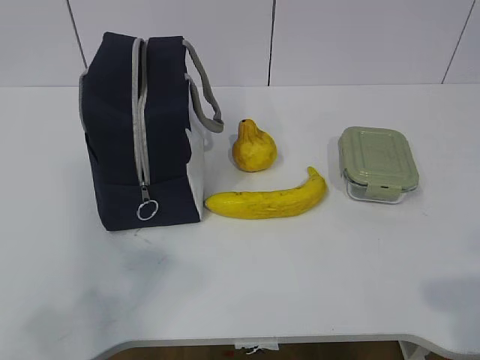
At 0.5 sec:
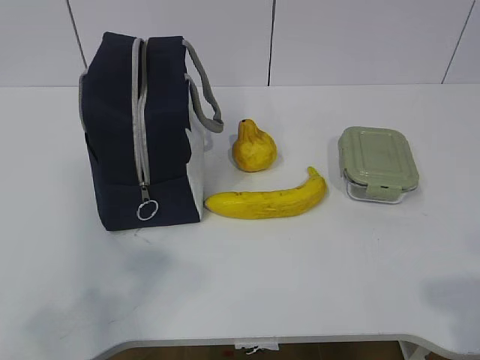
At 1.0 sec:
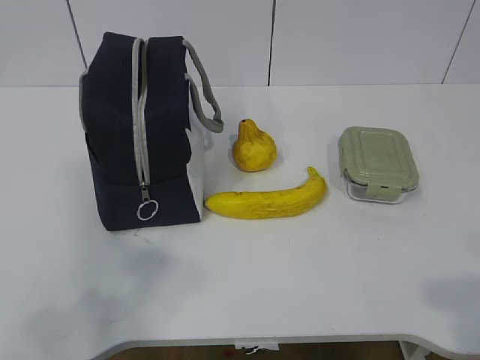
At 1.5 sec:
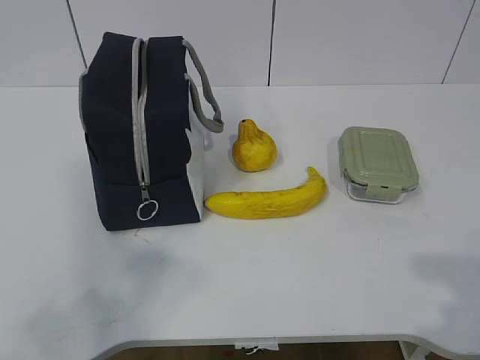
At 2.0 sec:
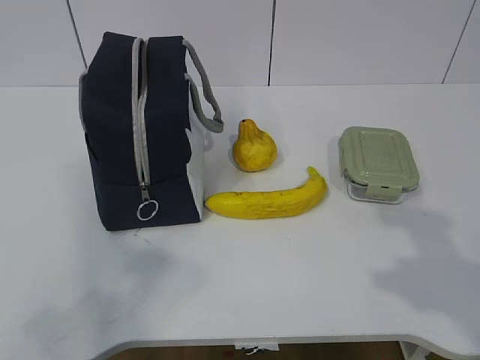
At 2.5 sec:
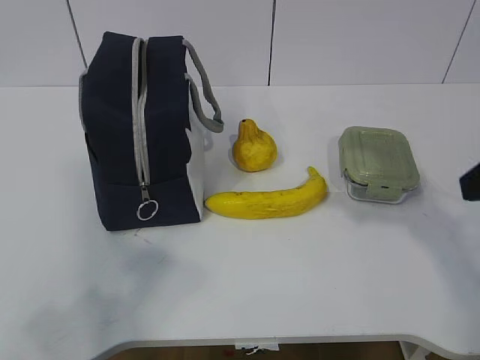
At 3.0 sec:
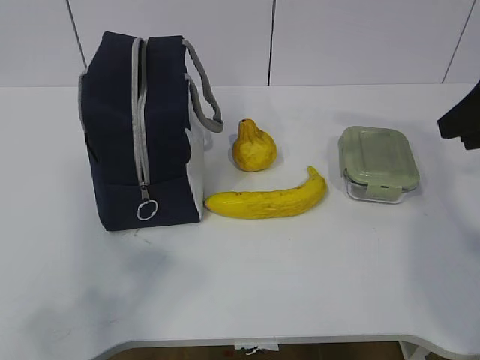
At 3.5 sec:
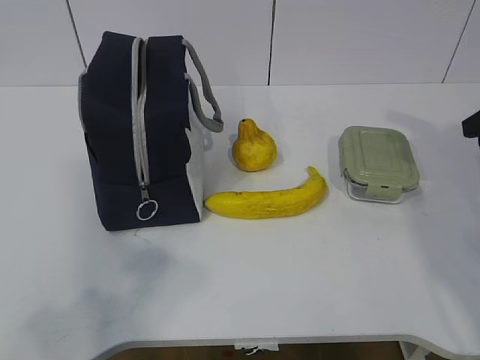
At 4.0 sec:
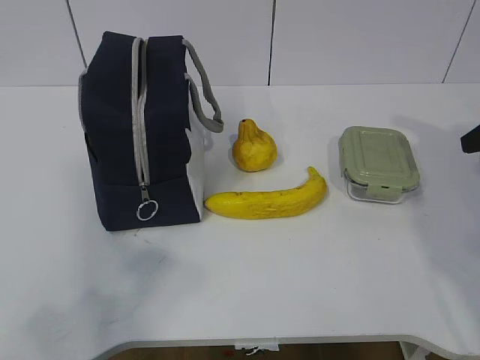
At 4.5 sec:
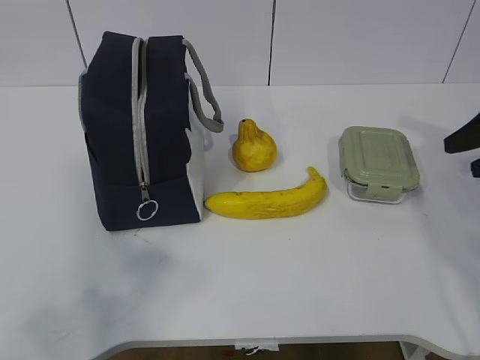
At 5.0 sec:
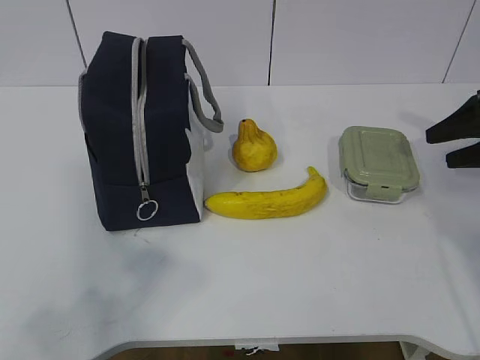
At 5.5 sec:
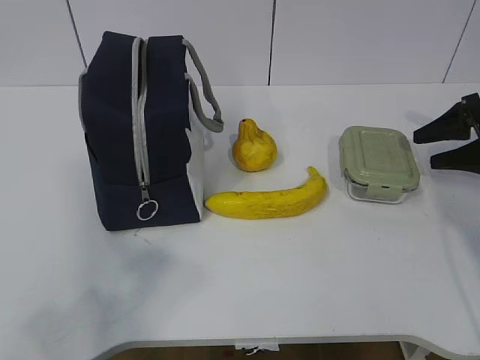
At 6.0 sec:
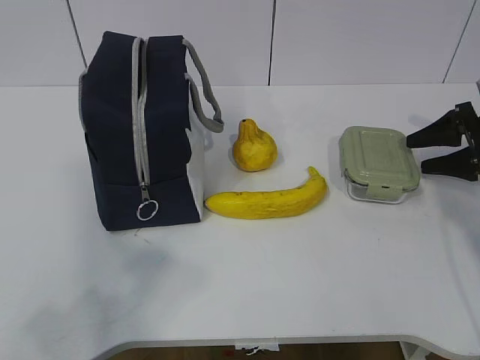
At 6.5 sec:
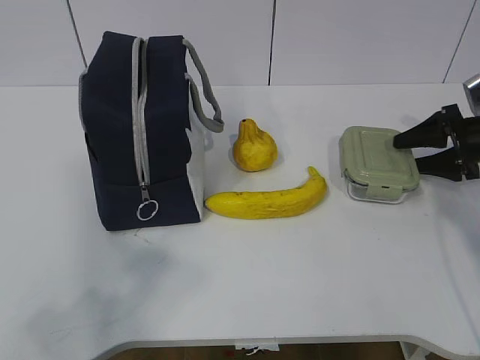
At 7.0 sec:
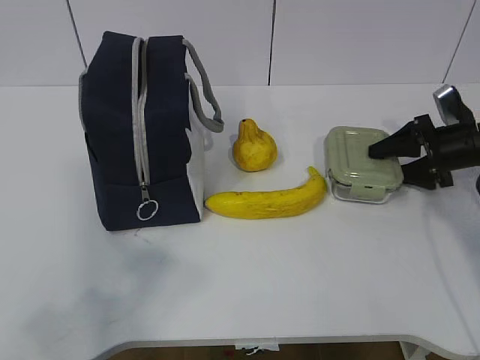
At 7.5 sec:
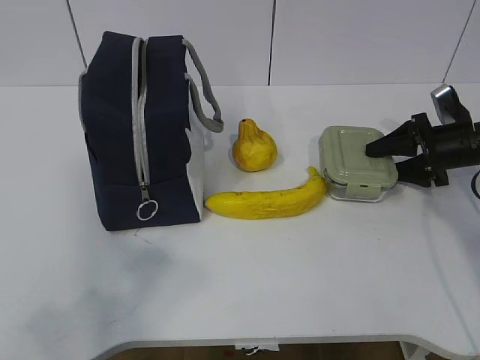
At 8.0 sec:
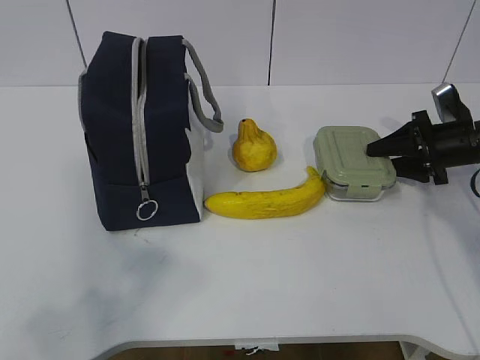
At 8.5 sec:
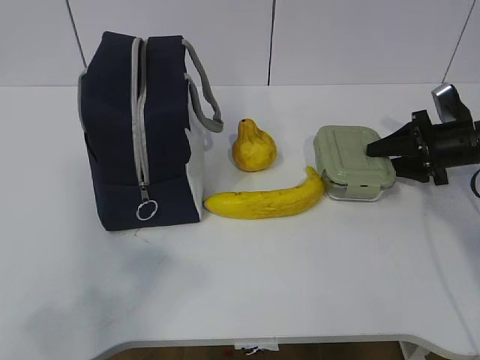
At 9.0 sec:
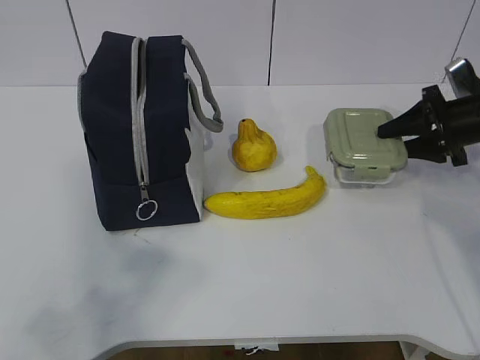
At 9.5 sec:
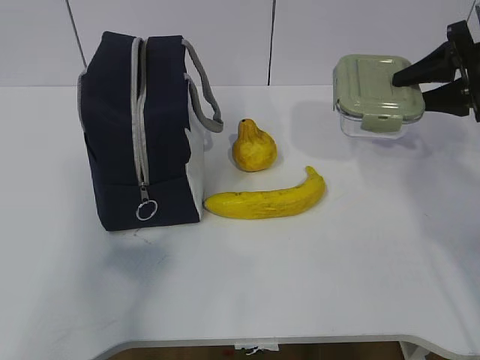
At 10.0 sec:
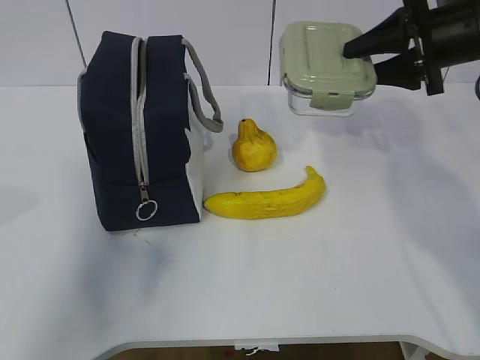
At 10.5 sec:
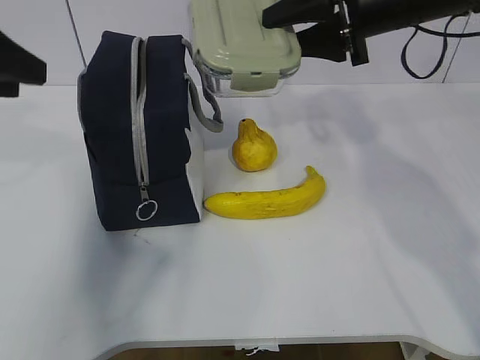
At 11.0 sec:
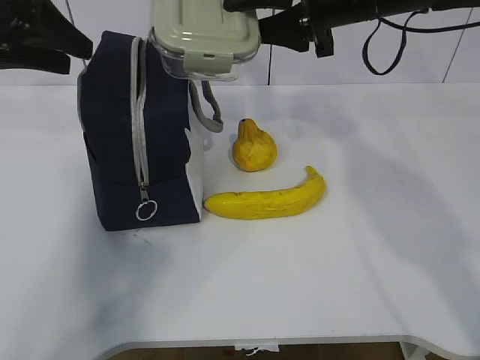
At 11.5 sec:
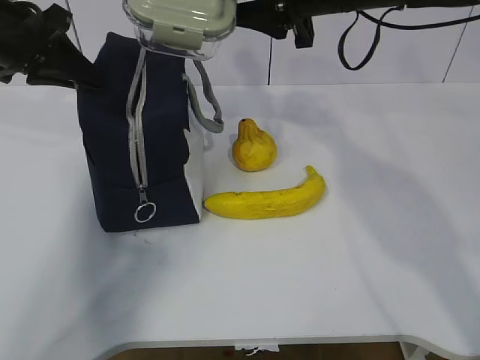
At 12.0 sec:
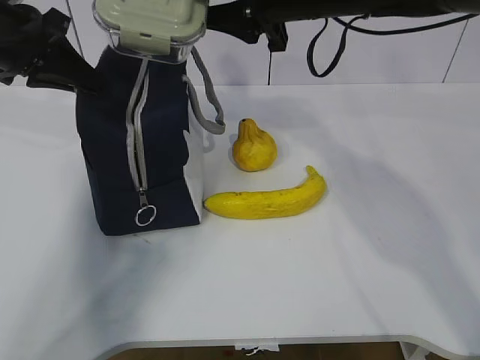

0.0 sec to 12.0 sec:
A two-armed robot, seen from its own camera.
Step, 0.0 sec to 7.0 sec: Grasp the box with the right gripper.
2.0 sec to 4.0 sec: The right gripper shifts approximately 25 cm forward and to the right.
4.0 sec to 6.0 sec: The right gripper moves downward and forward, approximately 15 cm.
6.0 sec to 8.0 sec: The right gripper moves some 5 cm.
8.0 sec to 10.0 sec: The left gripper is displaced forward by about 15 cm. The right gripper goes about 20 cm upward and to the left.
10.0 sec to 12.0 sec: The right gripper shifts about 20 cm to the left, while the left gripper heads forward, covering about 25 cm, and closes its fingers.

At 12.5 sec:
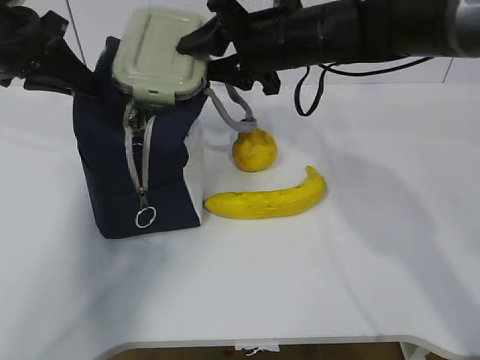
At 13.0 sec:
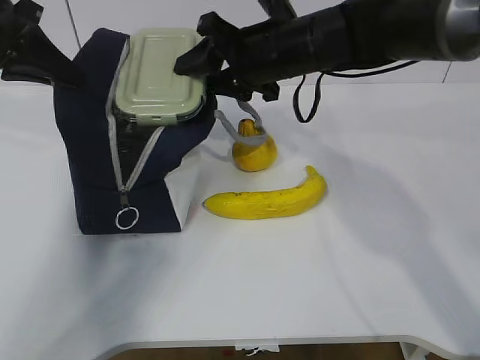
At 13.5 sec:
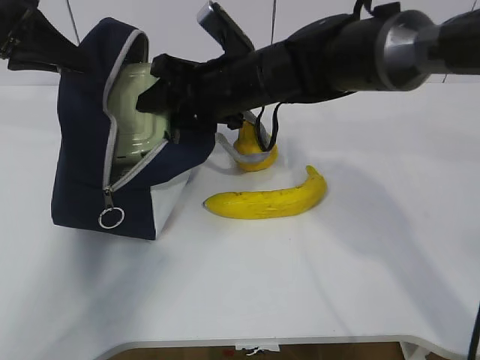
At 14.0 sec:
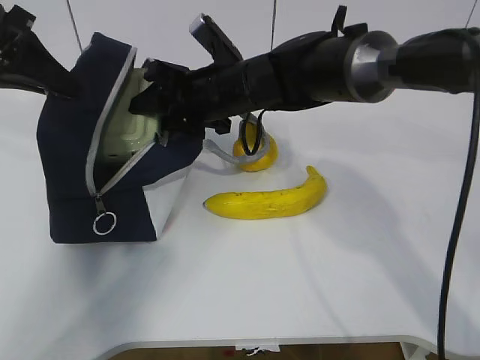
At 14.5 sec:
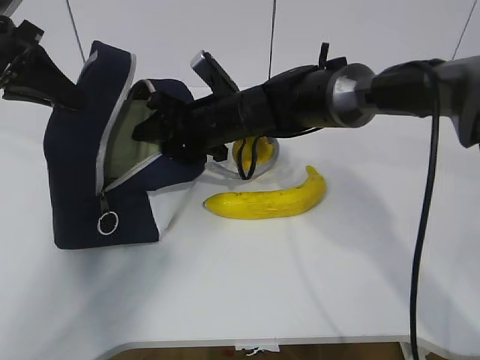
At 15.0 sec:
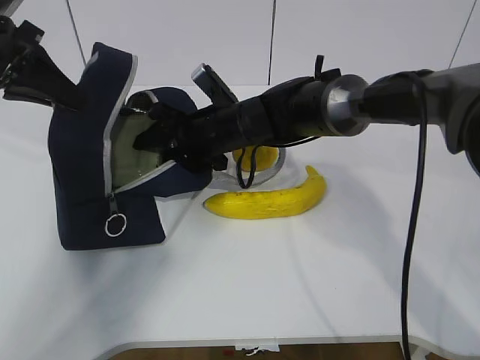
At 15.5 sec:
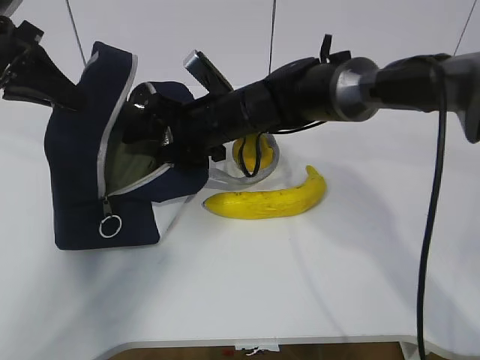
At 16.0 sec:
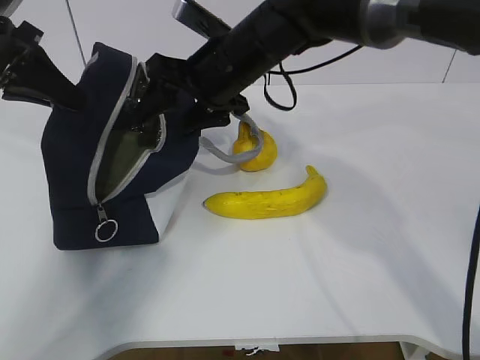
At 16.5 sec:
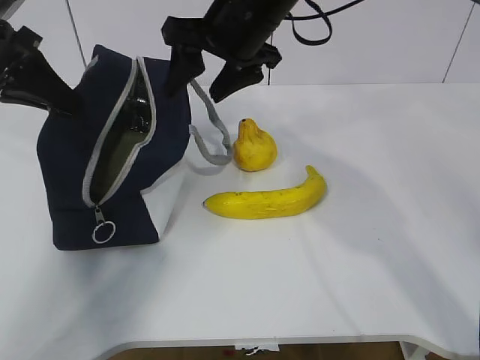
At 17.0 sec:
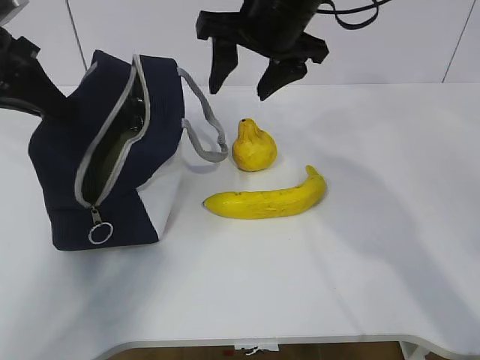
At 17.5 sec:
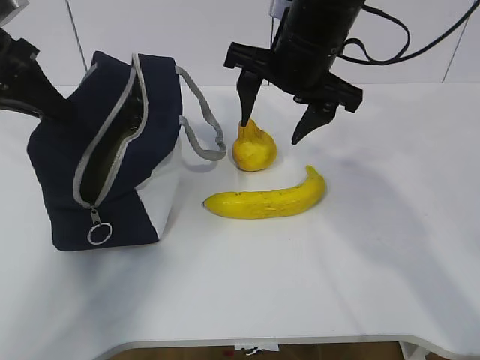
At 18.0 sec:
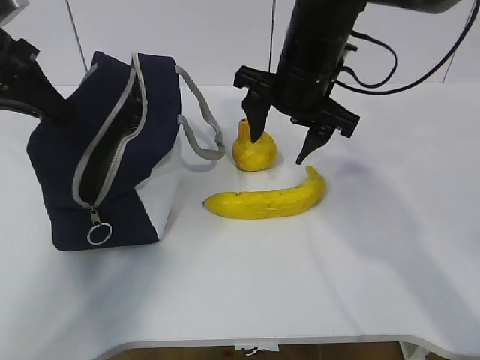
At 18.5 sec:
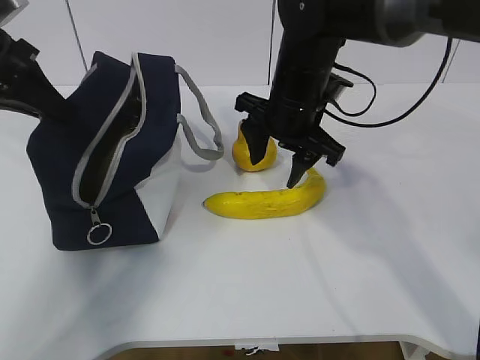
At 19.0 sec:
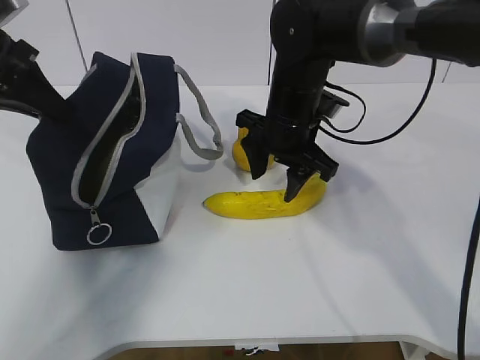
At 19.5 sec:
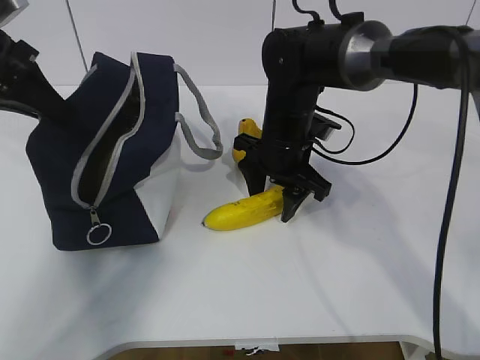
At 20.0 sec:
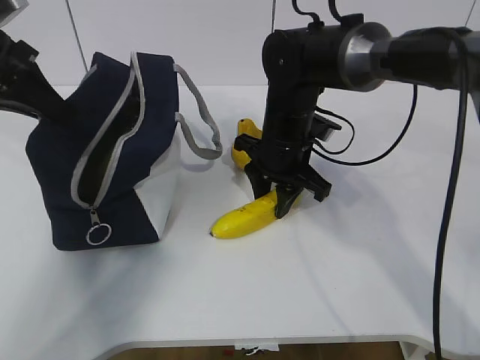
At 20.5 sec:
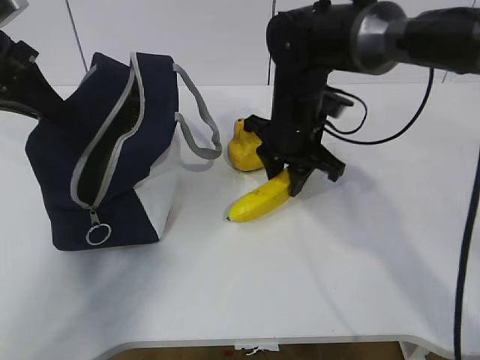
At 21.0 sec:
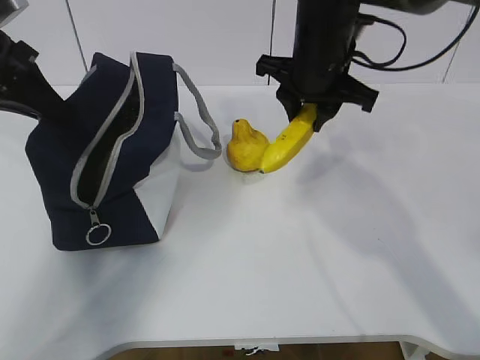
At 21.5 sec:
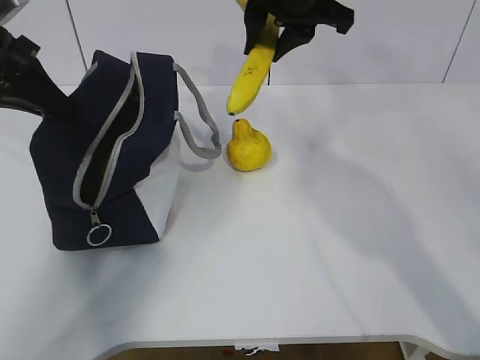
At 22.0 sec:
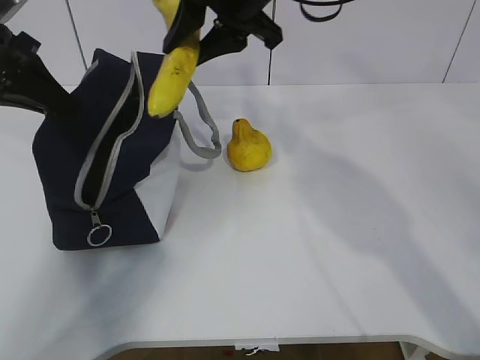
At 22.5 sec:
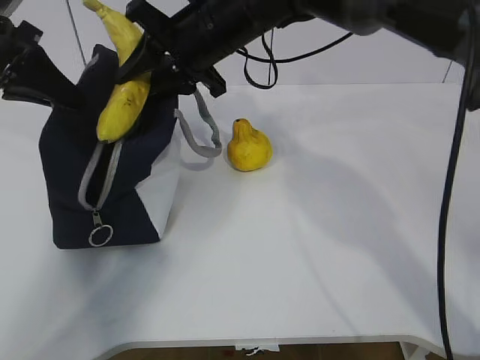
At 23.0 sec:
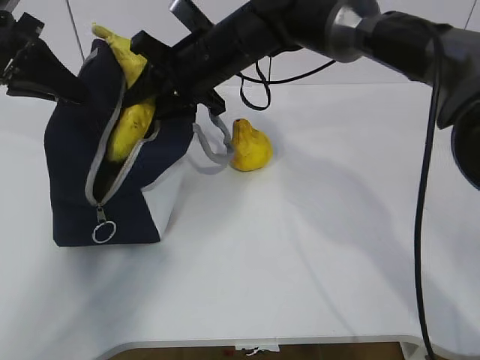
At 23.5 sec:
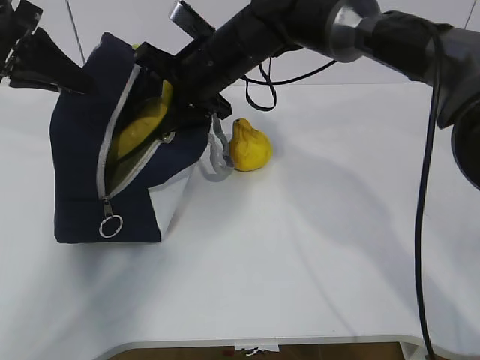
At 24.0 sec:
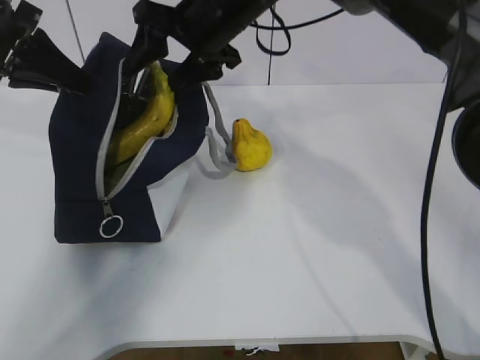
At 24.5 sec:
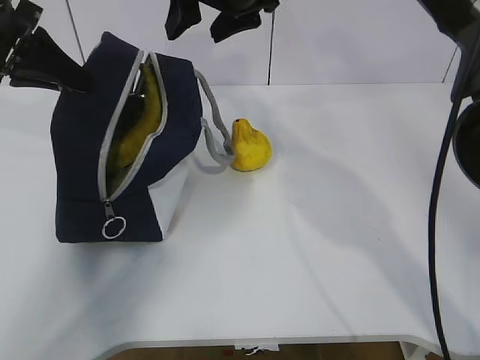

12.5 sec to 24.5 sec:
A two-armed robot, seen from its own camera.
Step, 12.5 sec to 16.5 sec: Place the box into the package with the right gripper.
Step, 17.5 sec to 20.0 sec: Grasp the banana with the right gripper.
Step, 20.5 sec to 24.0 sec: Place the banana into the package with the right gripper.
12.5 sec to 14.5 sec: The right gripper is displaced downward and to the left by about 15 cm.
14.5 sec to 16.5 sec: The right gripper travels upward by approximately 15 cm.
16.5 sec to 18.5 sec: The right gripper travels downward by approximately 10 cm.
18.5 sec to 20.5 sec: The right gripper closes up.
20.5 sec to 22.5 sec: The right gripper goes about 15 cm upward and to the left.
22.5 sec to 24.5 sec: The right gripper is displaced upward by about 5 cm, and opens its fingers.

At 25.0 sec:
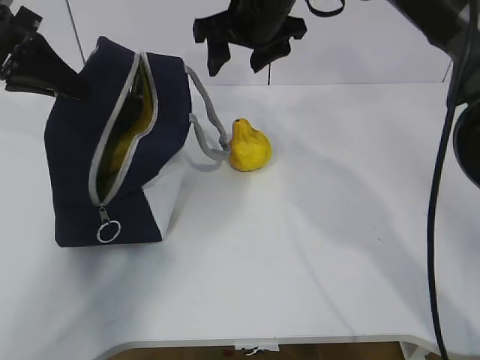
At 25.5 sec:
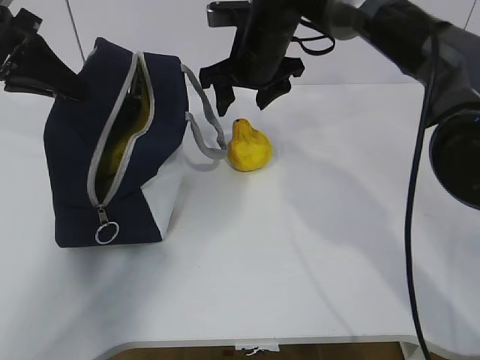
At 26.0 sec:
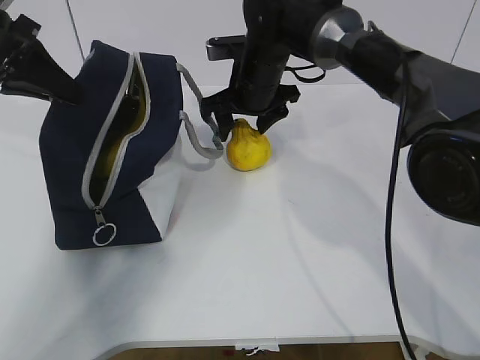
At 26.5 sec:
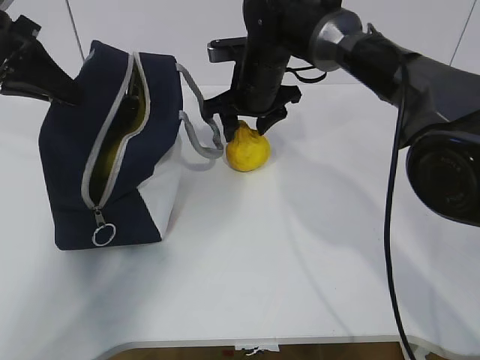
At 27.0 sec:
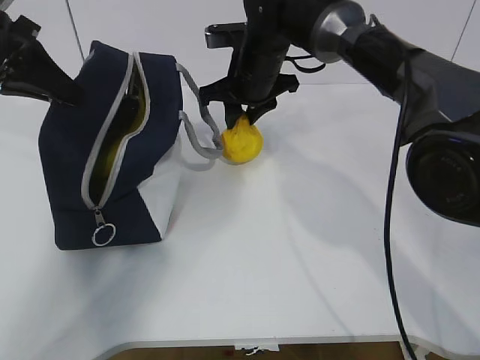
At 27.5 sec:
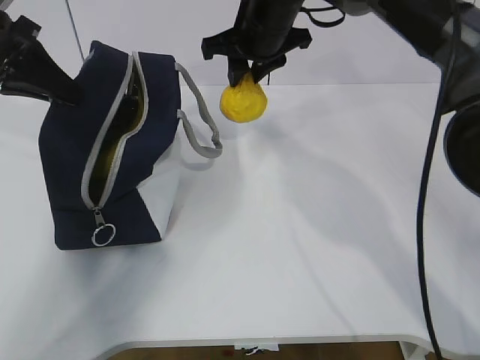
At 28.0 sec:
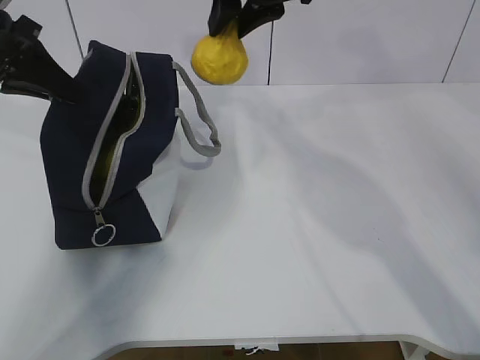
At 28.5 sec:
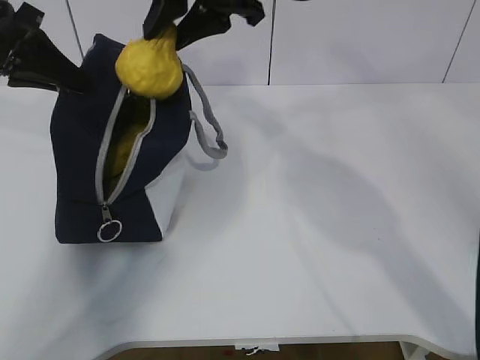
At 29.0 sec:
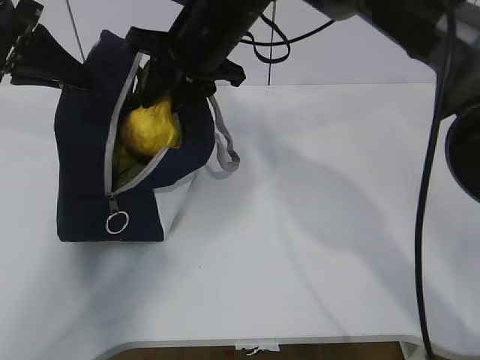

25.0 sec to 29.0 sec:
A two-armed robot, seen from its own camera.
Step, 25.0 sec to 26.5 sec: Grasp the pear with the right gripper.
25.0 sec to 27.0 sec: The right gripper travels downward by approximately 10 cm, and closes.
27.0 sec to 29.0 sec: The right gripper shifts approximately 10 cm upward, backward and to the left.
